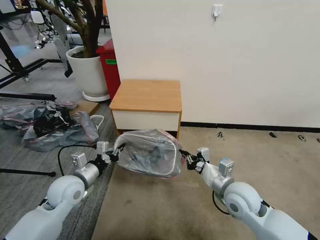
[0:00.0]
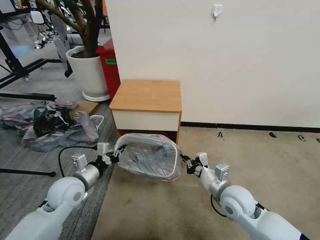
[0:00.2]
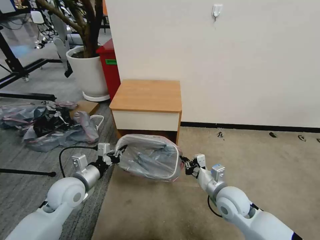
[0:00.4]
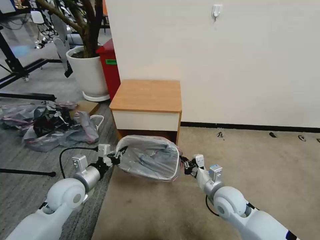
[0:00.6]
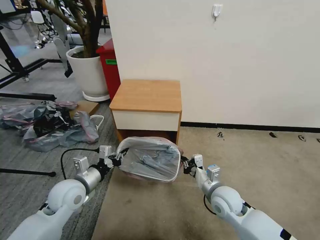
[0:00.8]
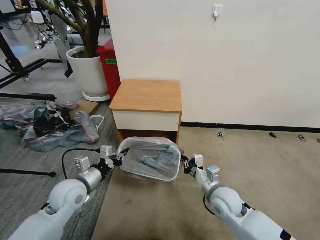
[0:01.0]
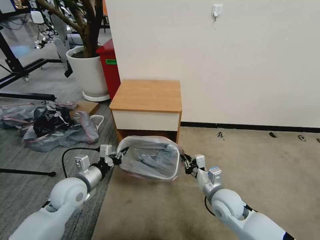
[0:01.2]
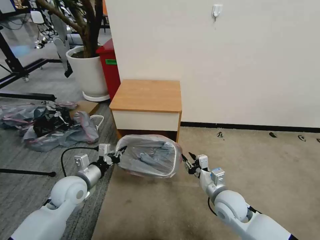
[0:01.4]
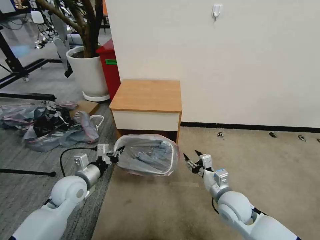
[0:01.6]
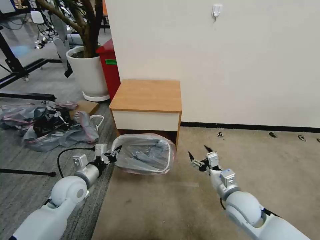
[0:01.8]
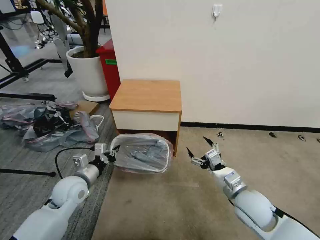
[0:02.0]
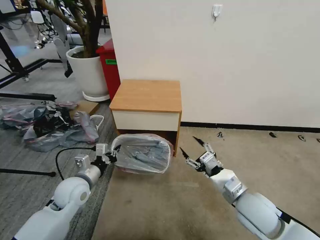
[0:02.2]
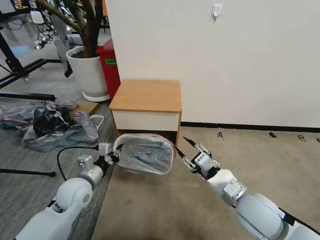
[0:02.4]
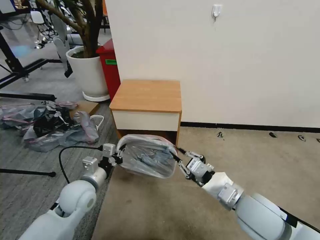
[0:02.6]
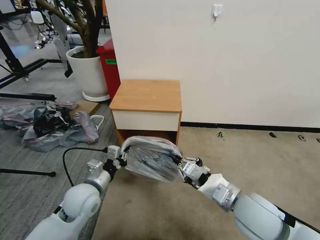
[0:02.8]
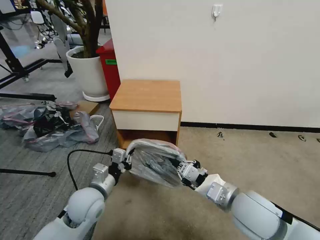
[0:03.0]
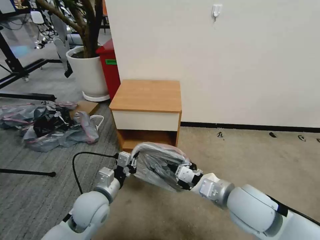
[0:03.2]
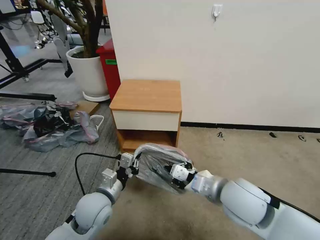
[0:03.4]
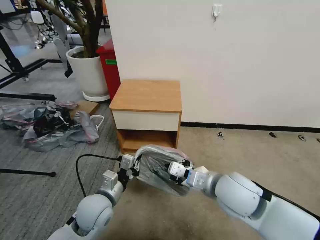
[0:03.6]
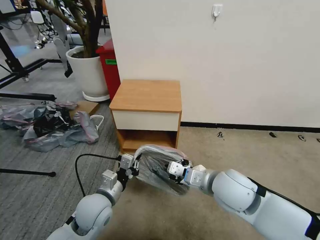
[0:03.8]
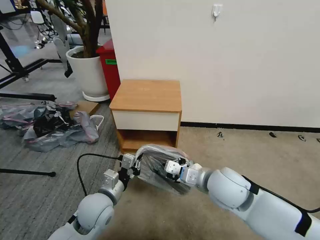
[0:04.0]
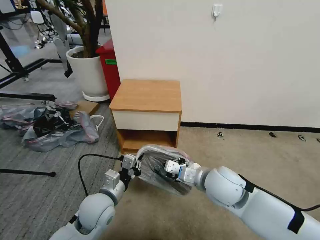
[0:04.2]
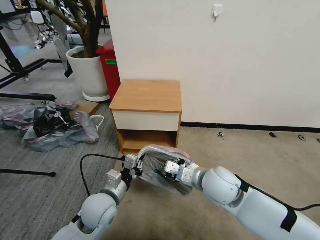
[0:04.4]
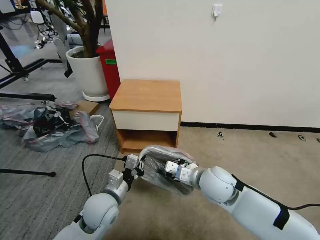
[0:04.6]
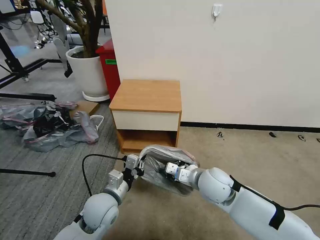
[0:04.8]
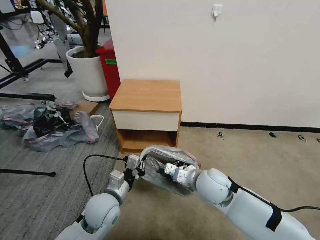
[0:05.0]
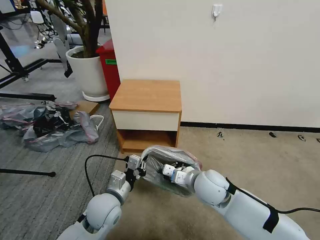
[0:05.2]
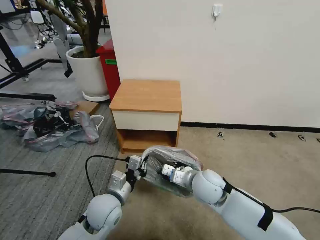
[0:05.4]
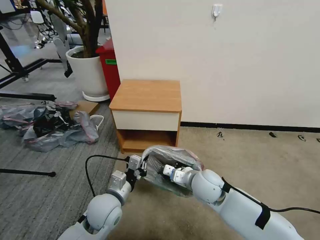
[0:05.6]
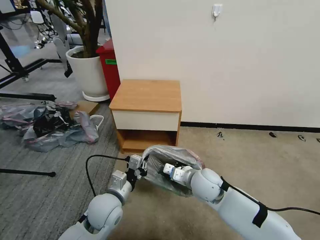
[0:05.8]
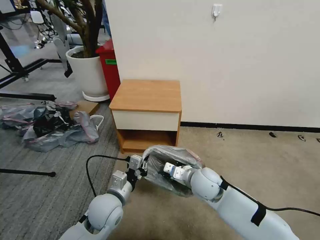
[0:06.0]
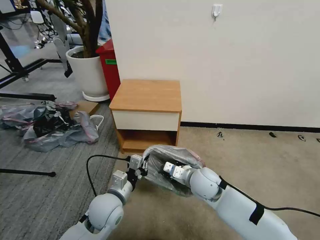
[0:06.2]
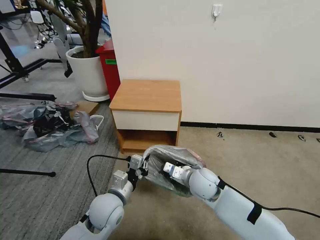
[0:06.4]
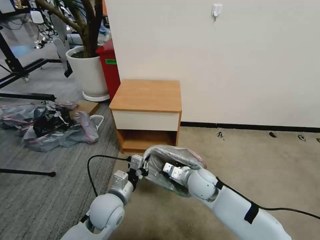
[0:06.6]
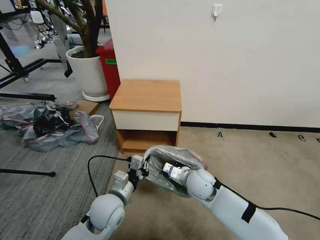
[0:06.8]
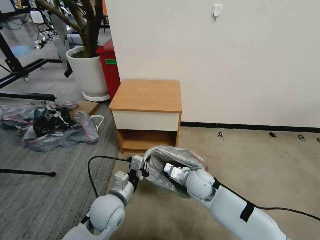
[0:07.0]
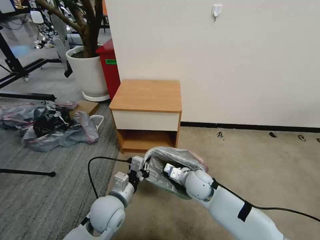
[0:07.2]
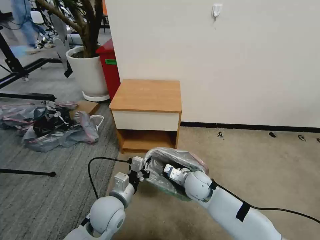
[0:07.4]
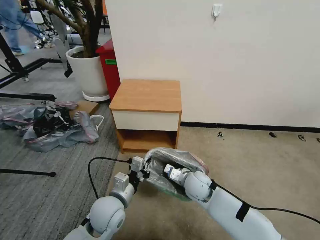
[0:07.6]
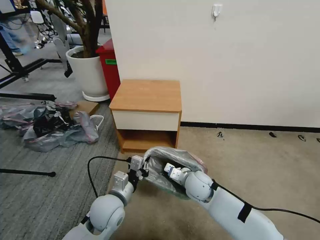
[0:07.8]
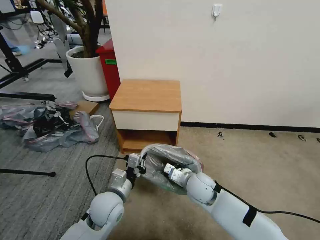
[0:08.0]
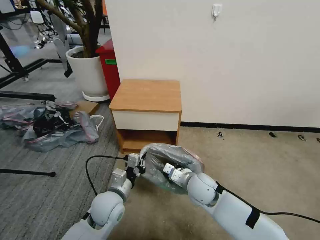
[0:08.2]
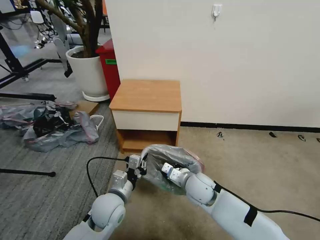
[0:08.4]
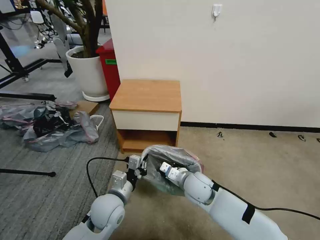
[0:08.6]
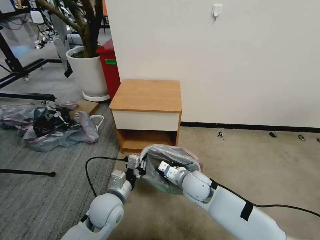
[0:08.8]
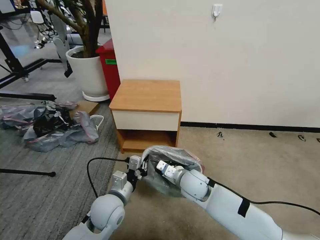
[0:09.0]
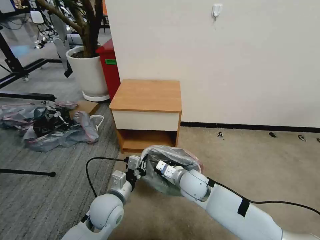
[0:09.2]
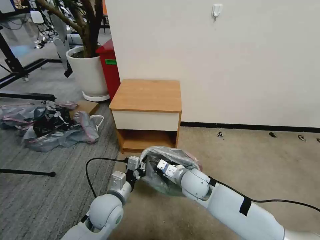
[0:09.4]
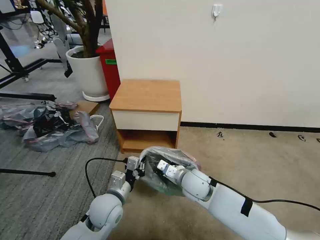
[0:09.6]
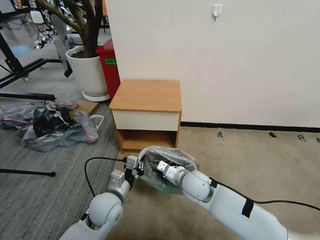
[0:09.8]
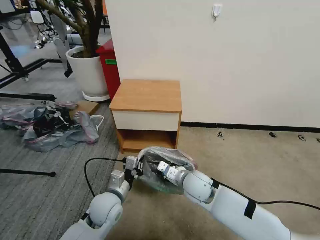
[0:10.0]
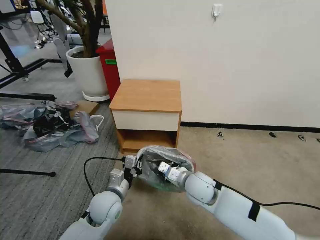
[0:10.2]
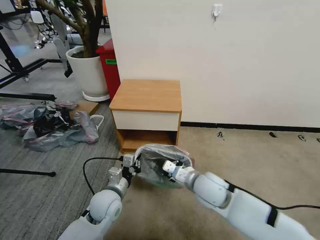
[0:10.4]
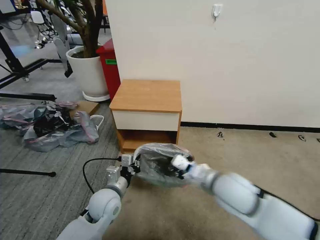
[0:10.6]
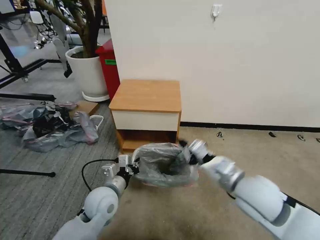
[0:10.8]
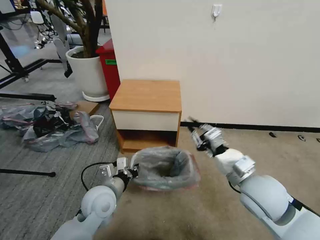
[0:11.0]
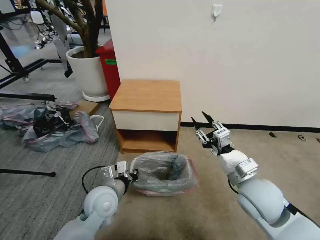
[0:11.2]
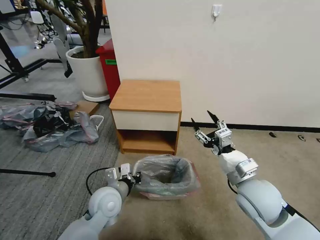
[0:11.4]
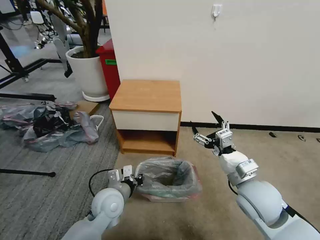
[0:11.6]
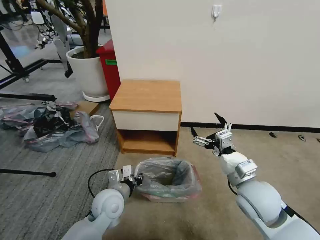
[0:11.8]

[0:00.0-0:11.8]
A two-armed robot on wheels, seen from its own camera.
Task of the whole recording: Pick up the garbage bag from the table and place it over the trash can.
0:00.0 to 0:01.4: The right gripper travels downward by some 5 cm, and opens up.
0:01.4 to 0:03.0: The left gripper shifts about 5 cm to the right. Meanwhile the right gripper moves upward, approximately 15 cm, and closes.
0:03.0 to 0:04.4: The right gripper shifts approximately 10 cm forward and to the left.
0:04.4 to 0:06.0: The right gripper travels downward by approximately 5 cm.
0:06.0 to 0:07.4: The right gripper moves downward, approximately 5 cm.
0:07.4 to 0:08.8: There are only small adjustments of the grippers.
0:08.8 to 0:10.4: The right gripper changes place by about 5 cm.
0:10.4 to 0:11.8: The right gripper travels to the right and upward by about 10 cm, and opens its fingers.

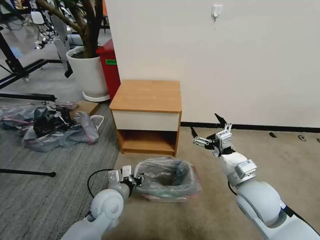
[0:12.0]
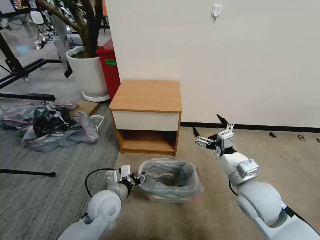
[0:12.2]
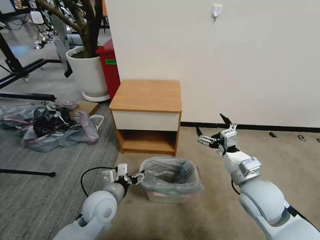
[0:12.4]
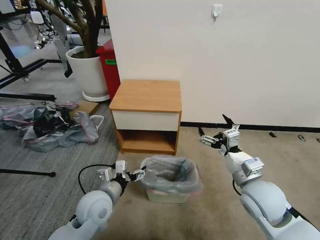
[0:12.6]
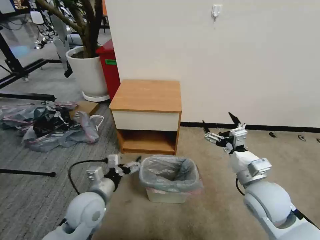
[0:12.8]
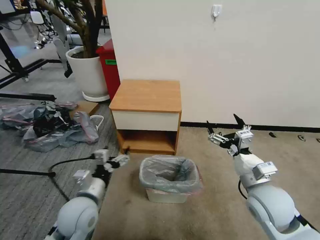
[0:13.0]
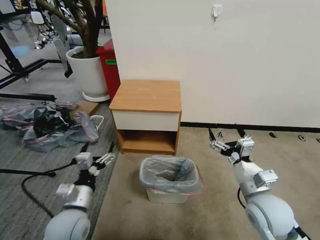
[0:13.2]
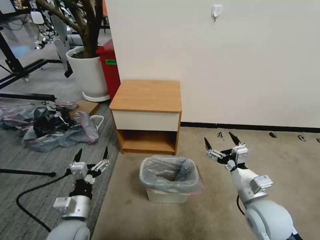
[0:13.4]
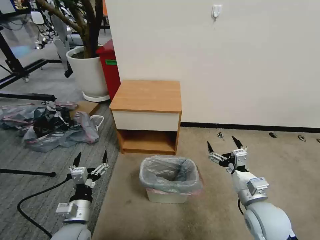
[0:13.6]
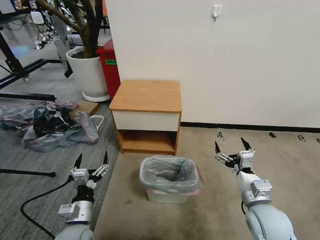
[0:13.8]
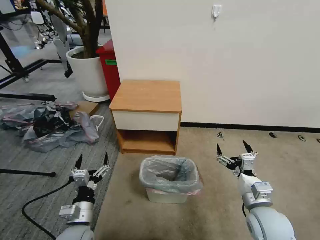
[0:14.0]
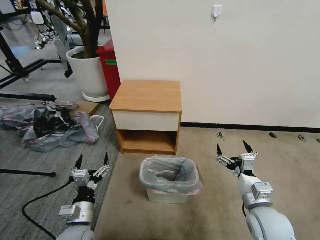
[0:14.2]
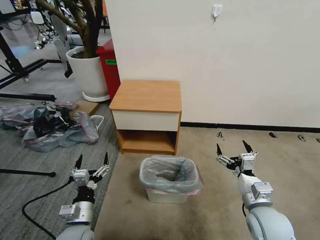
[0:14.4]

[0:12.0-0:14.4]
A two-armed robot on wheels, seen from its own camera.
Task of the whole recording: Pick up the garbage bag from the table and place it over the trash can.
0:12.0 to 0:13.2: The left gripper heads to the left and backward, covering roughly 10 cm, and opens its fingers.
0:13.2 to 0:14.4: The right gripper changes place by some 5 cm, while the left gripper moves downward, some 5 cm.

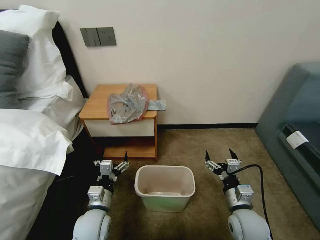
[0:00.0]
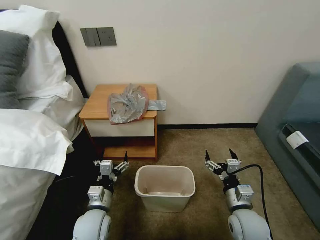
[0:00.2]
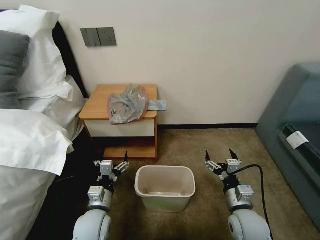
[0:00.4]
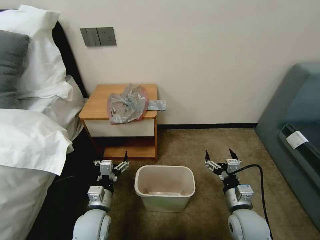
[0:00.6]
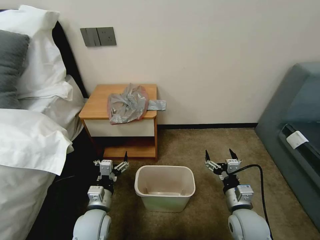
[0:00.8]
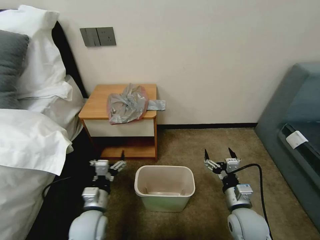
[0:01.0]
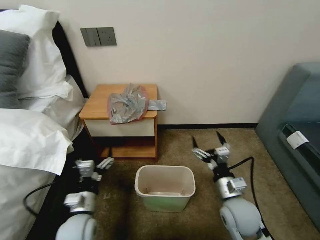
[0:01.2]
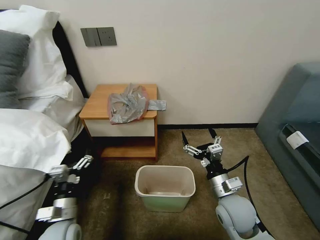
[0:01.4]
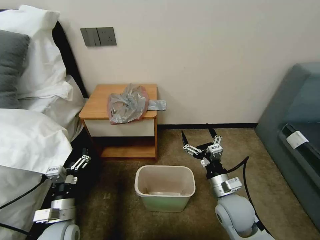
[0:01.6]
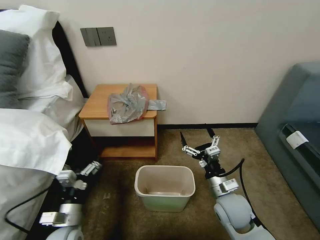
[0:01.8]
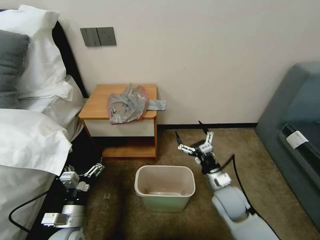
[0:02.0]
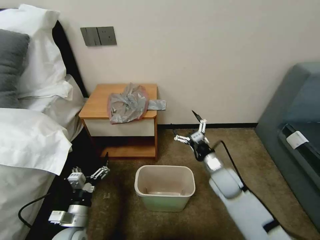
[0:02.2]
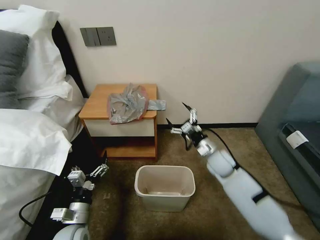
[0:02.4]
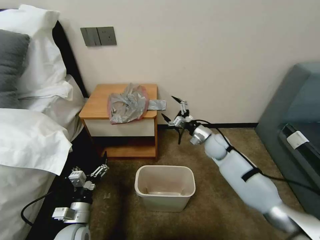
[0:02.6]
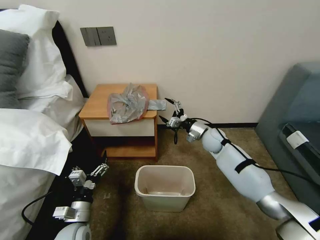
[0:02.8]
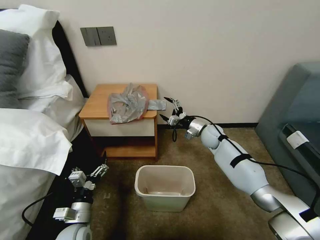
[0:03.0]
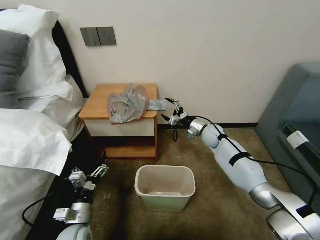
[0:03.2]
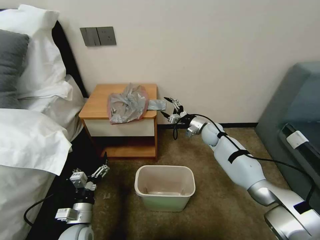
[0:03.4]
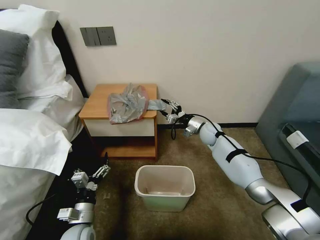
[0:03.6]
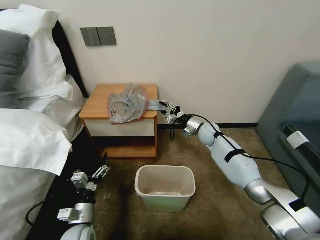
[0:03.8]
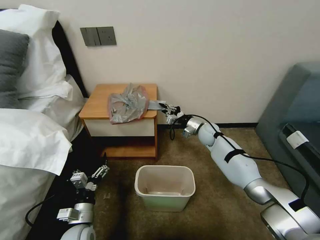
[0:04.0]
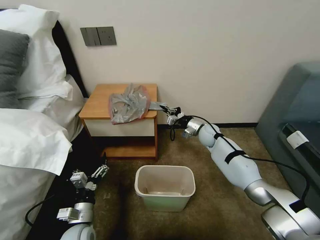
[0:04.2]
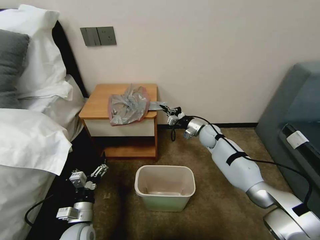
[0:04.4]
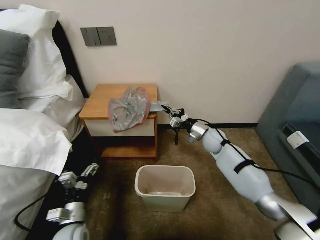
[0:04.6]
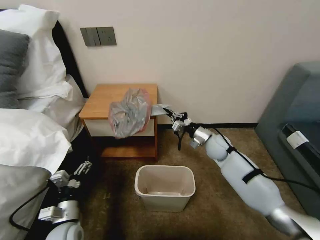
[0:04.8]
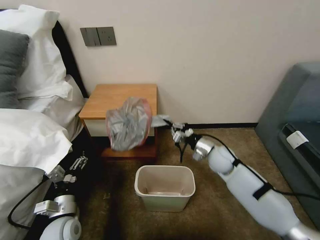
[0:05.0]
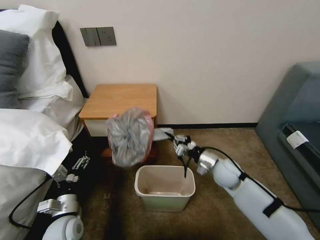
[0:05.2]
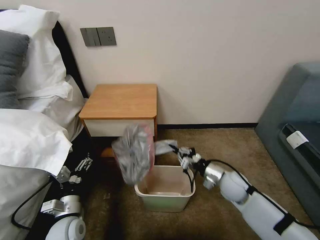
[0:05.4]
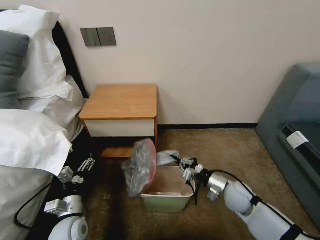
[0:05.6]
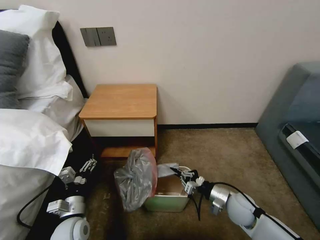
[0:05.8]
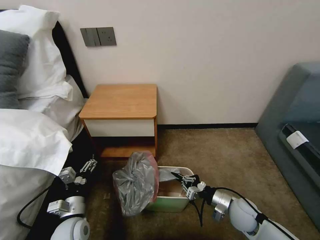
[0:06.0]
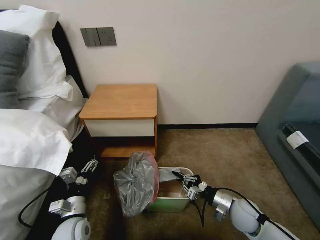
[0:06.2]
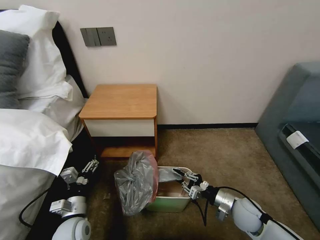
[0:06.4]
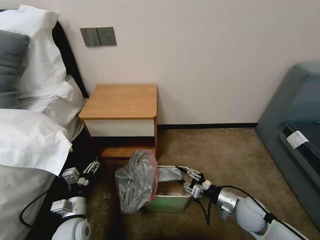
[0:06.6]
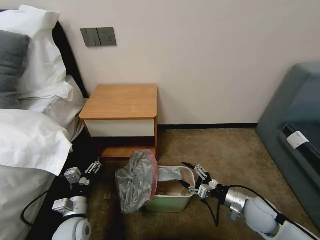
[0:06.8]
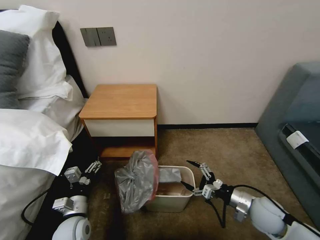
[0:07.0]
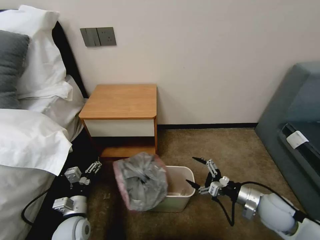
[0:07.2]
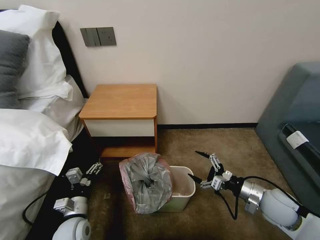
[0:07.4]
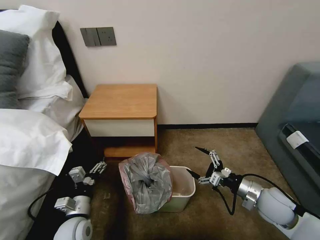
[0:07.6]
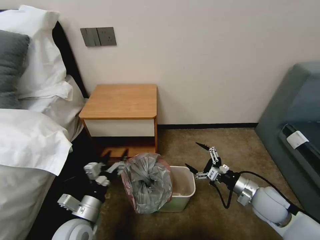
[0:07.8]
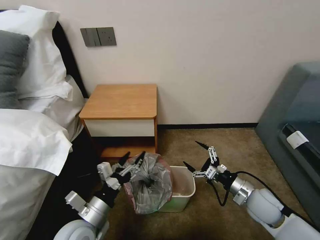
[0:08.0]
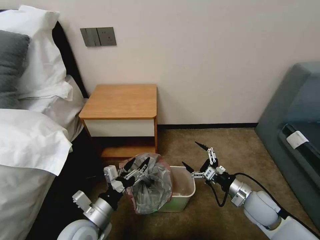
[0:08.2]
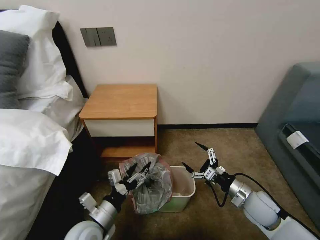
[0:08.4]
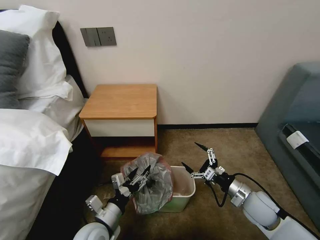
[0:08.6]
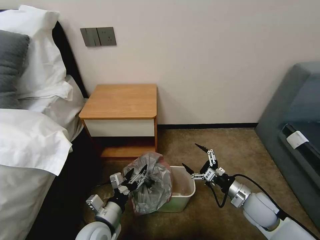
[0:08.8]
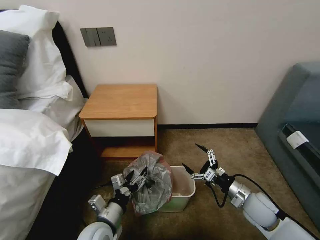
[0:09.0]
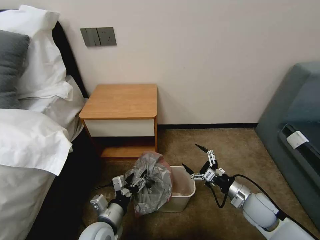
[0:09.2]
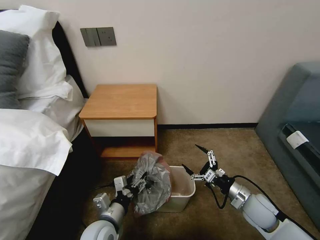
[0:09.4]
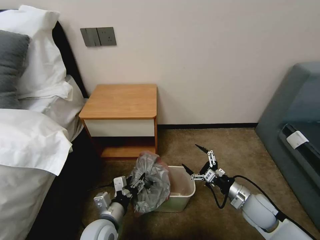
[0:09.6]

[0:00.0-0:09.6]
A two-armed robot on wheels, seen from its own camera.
Task of the whole recording: Pick up the garbage bag from the table and place it over the trash can.
0:01.6 to 0:03.2: The right gripper goes about 30 cm forward. The left gripper moves roughly 5 cm.
0:03.2 to 0:04.8: The right gripper shifts about 5 cm backward, and closes up.
0:04.8 to 0:06.4: The right gripper shifts some 25 cm backward and downward.
0:06.4 to 0:08.0: The right gripper shifts roughly 5 cm upward, and opens. Meanwhile the left gripper goes approximately 10 cm upward and to the right.
0:08.0 to 0:09.6: The left gripper travels downward by roughly 5 cm.
